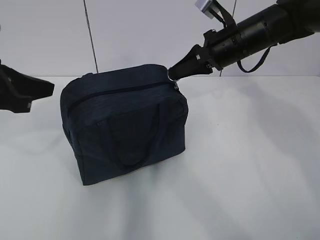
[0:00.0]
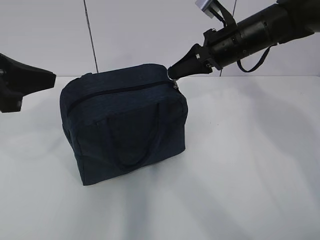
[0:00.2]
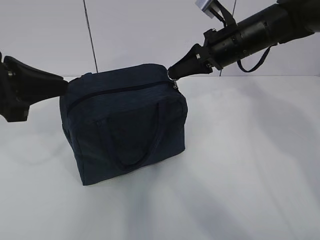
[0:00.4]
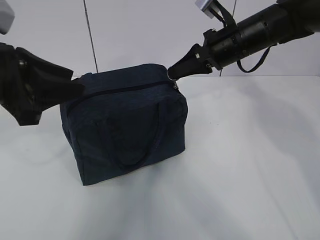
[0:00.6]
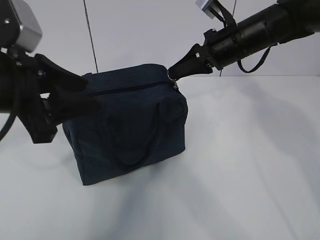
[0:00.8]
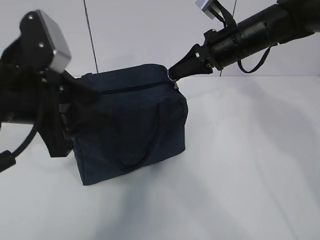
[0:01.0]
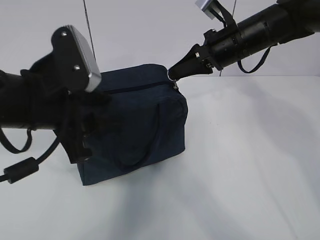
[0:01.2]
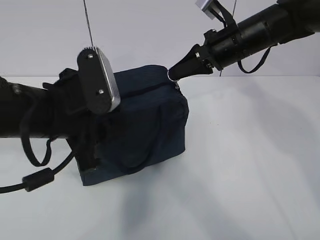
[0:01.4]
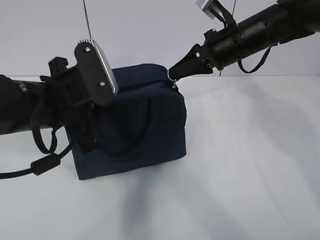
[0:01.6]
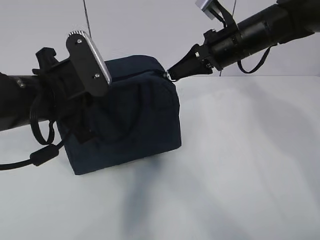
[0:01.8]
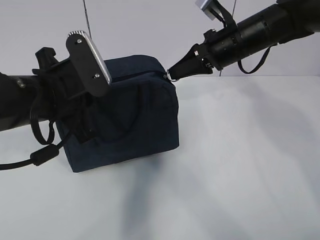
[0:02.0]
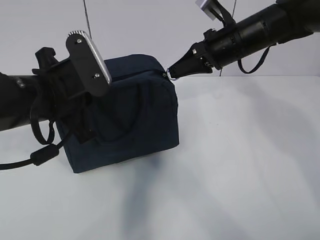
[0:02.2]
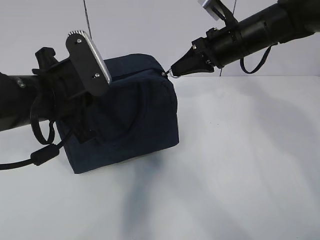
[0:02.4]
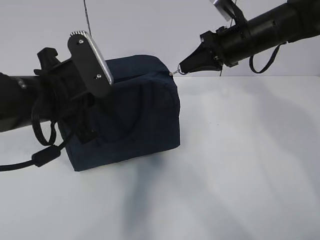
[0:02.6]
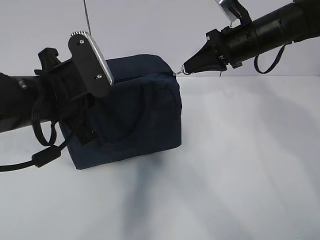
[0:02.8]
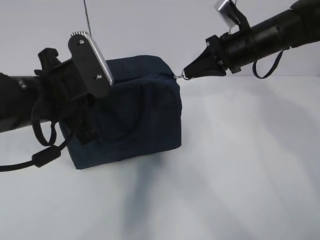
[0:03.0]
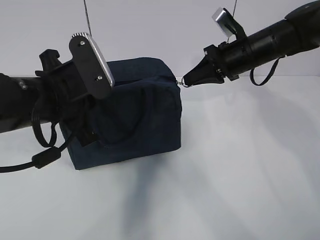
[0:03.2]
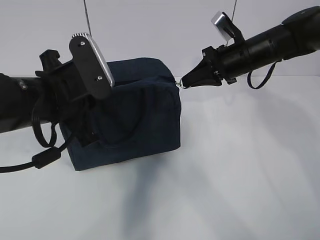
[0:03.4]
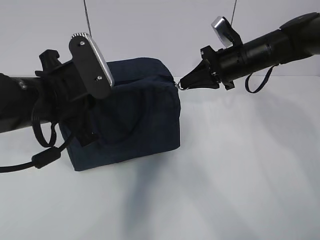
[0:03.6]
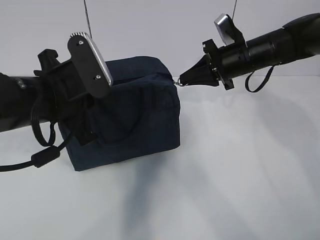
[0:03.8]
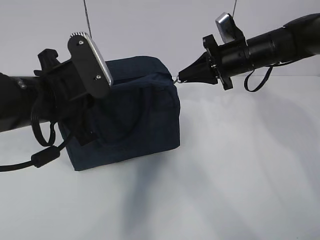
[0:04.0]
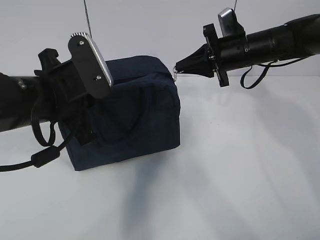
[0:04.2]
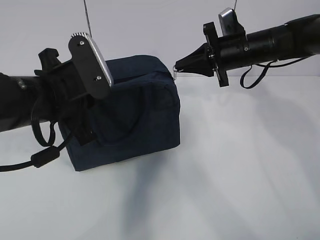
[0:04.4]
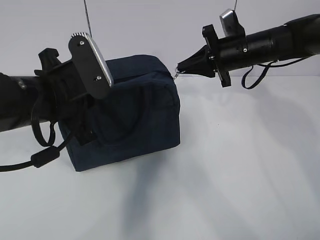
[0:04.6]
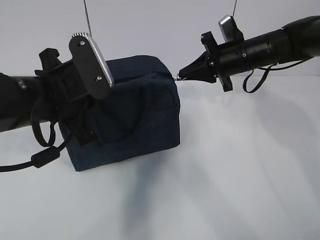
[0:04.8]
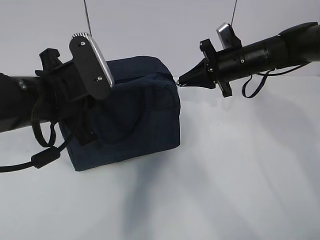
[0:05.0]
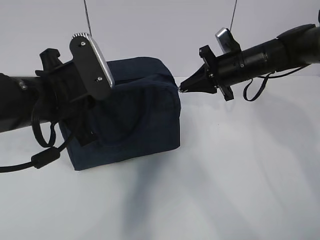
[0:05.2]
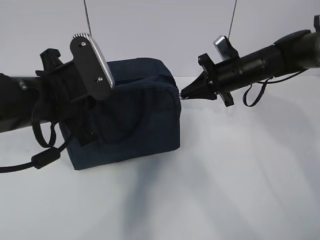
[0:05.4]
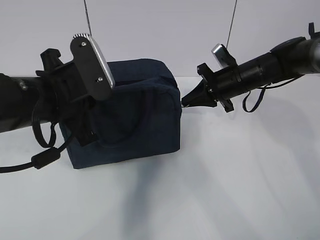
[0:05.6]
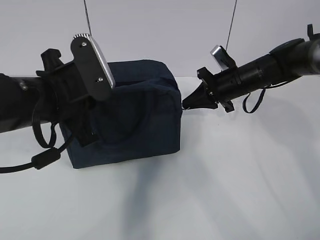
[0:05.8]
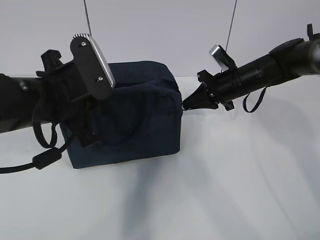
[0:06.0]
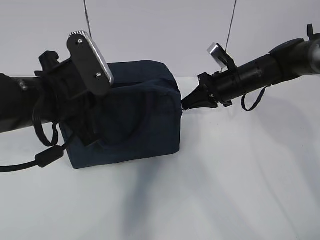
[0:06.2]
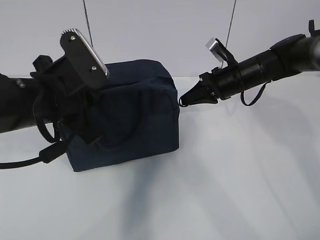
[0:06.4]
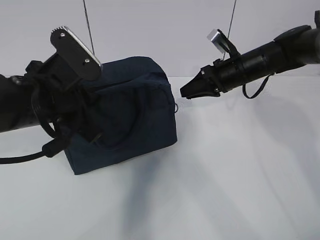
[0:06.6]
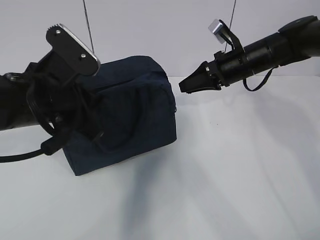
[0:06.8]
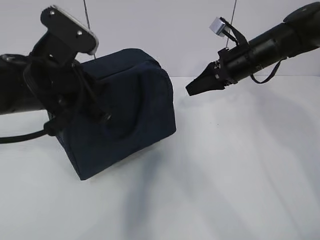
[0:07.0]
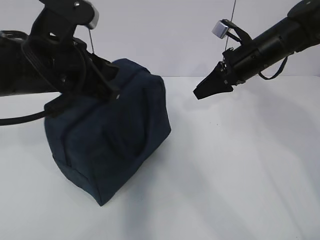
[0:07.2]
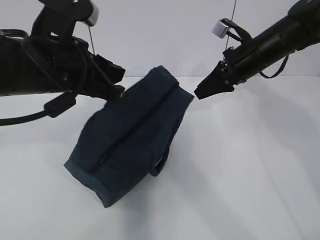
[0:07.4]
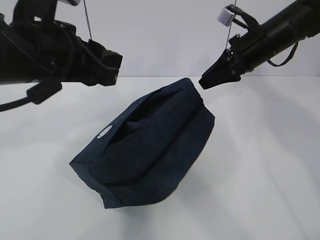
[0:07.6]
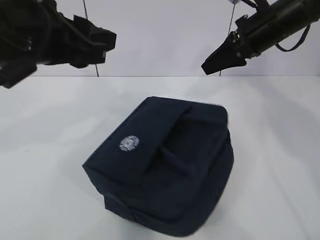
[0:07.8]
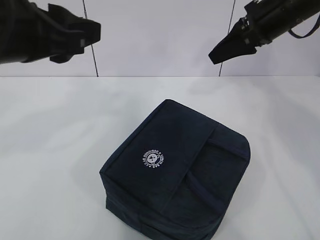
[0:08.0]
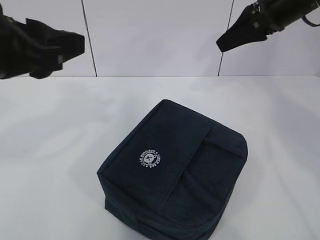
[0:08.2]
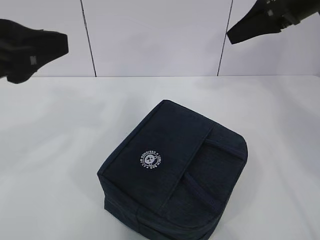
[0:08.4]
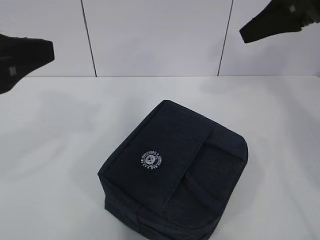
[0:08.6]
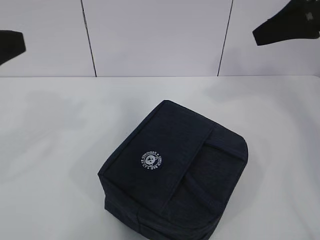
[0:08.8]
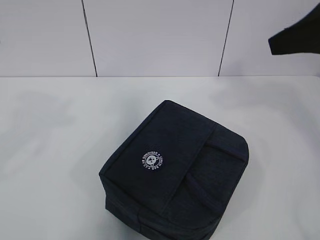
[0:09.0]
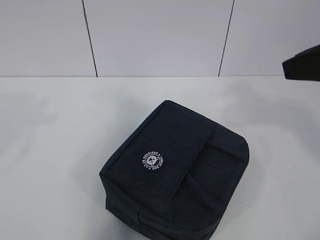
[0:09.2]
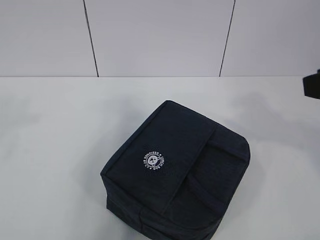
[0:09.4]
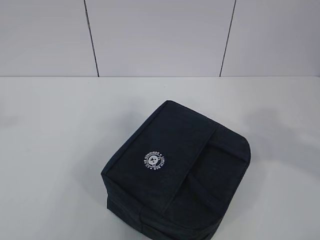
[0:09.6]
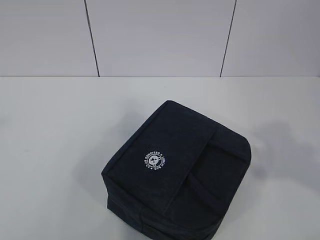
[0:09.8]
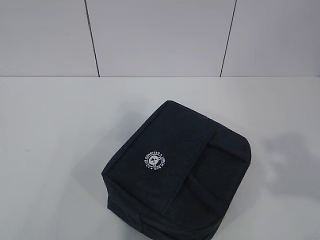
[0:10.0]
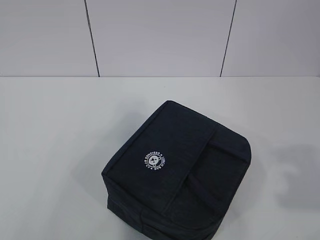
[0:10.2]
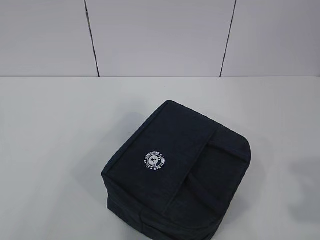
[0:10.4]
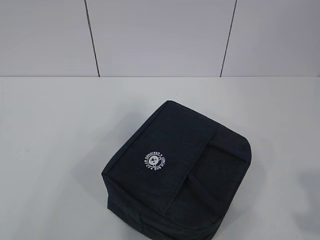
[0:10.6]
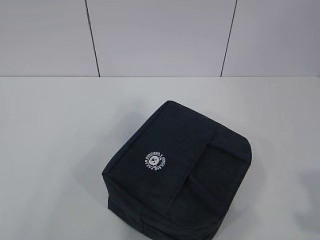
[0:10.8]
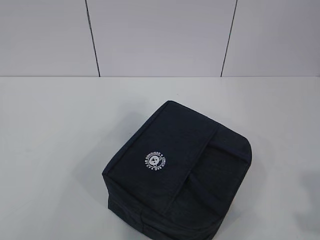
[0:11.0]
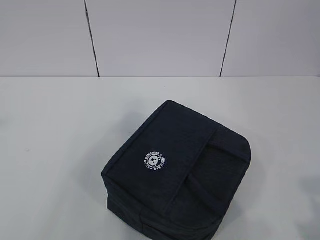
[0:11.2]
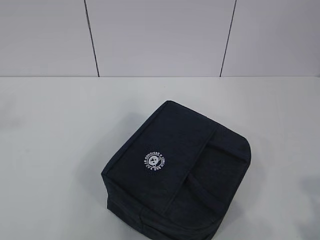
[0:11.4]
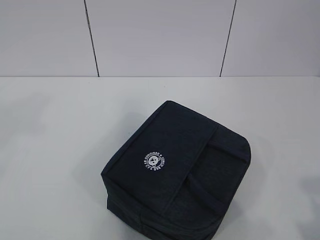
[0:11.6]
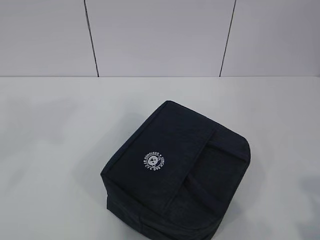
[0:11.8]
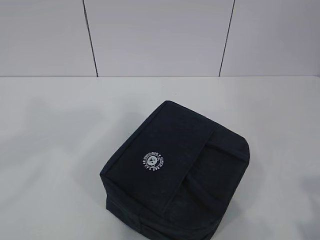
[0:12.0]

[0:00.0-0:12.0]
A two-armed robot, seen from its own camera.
0.0 to 1.6 s: The left gripper goes some 10 cm to the right, and opens its fingers.
1.6 to 3.0 s: The left gripper closes its fingers.
4.4 to 6.0 s: The right gripper goes roughly 5 cm downward.
6.0 to 7.6 s: The left gripper shifts about 5 cm upward, and opens its fingers. Meanwhile the right gripper goes approximately 10 cm upward, and opens.
7.6 to 9.0 s: The left gripper travels to the left and backward by roughly 15 cm, while the right gripper travels backward and upward by approximately 20 cm.
9.0 to 10.4 s: The left gripper shifts about 15 cm to the left and backward; the right gripper shifts some 25 cm backward.
10.4 to 12.0 s: The left gripper heads to the right, covering roughly 15 cm.

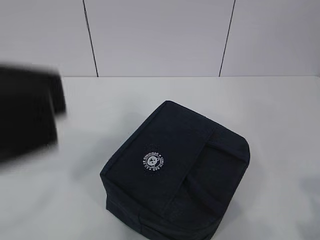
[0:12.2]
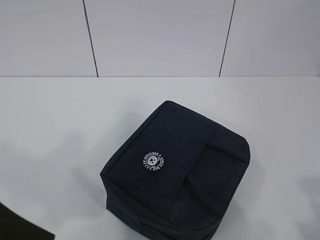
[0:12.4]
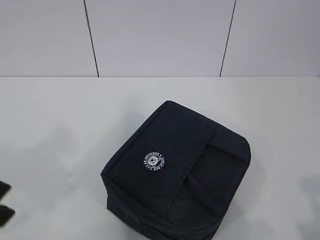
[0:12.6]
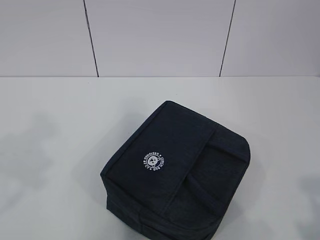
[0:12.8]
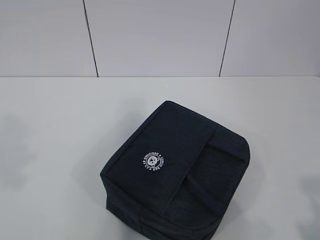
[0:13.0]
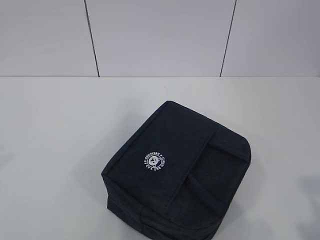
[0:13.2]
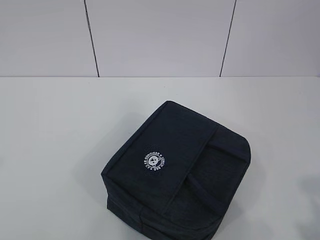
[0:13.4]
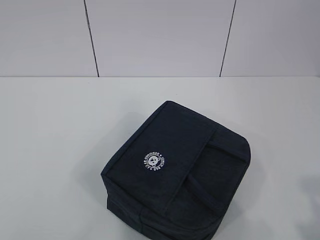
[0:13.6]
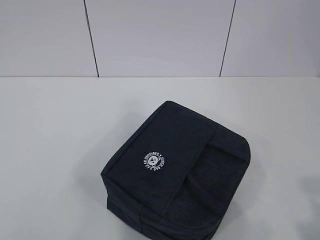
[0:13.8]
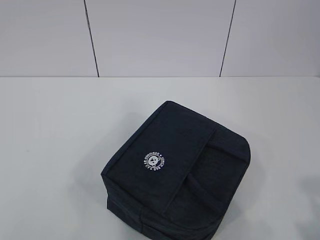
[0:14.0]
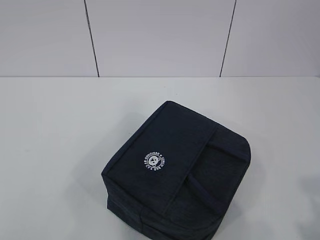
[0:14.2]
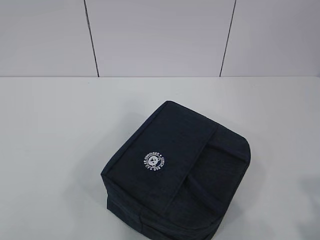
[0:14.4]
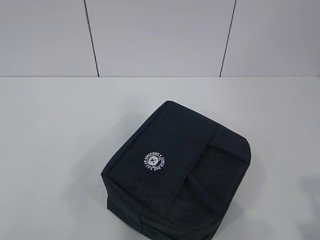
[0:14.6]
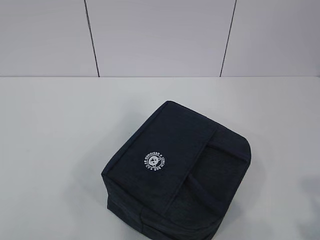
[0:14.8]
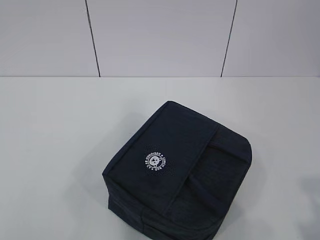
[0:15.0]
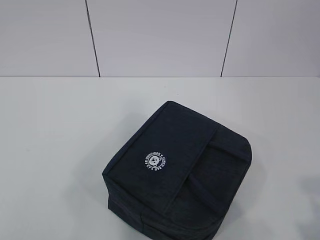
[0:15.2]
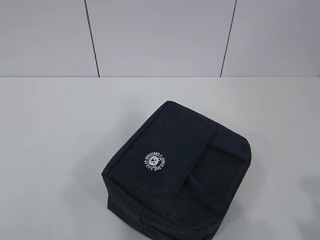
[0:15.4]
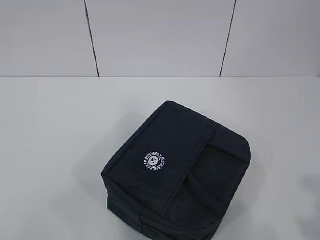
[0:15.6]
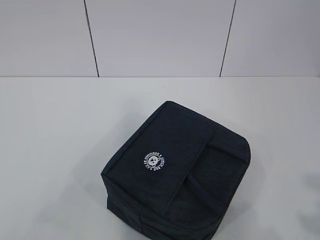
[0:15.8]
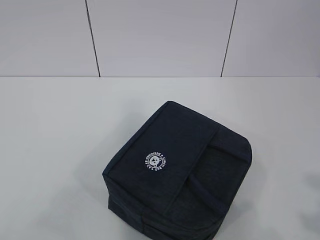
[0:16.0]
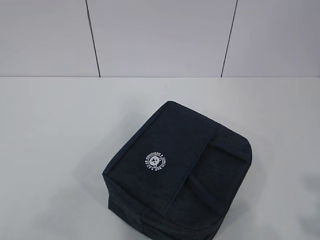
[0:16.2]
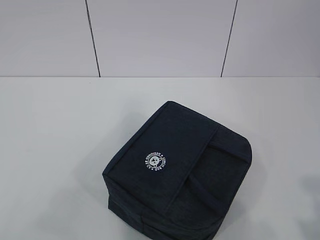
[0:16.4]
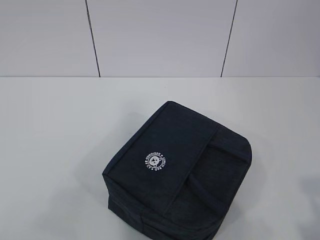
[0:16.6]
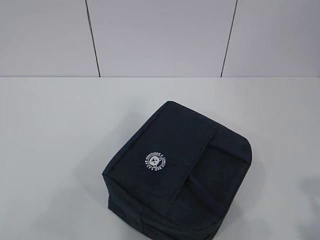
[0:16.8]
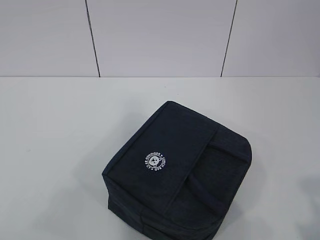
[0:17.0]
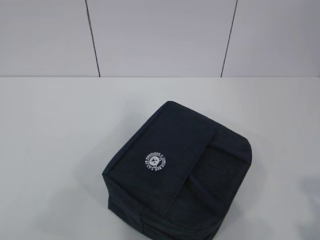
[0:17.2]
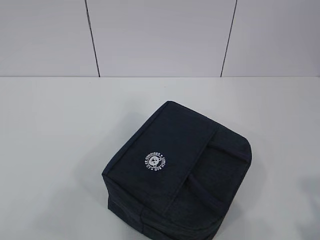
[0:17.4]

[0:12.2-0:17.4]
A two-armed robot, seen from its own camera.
12.2 to 14.0 s: The left gripper heads to the left, backward and downward, covering some 20 cm.

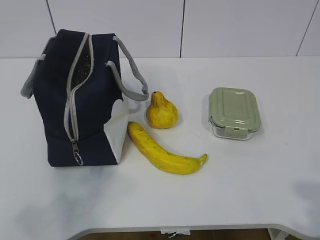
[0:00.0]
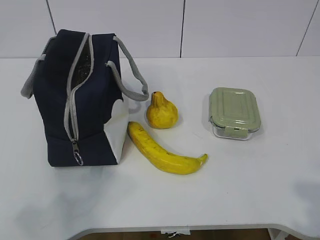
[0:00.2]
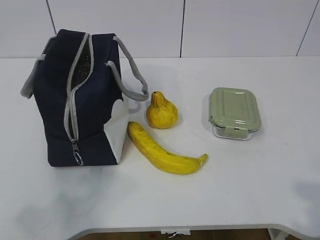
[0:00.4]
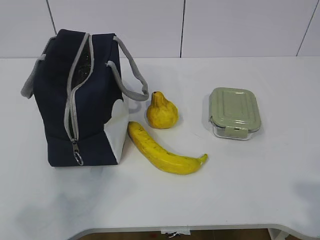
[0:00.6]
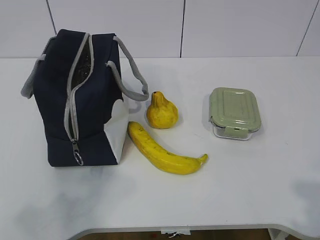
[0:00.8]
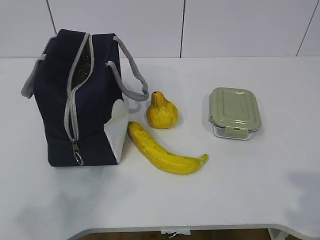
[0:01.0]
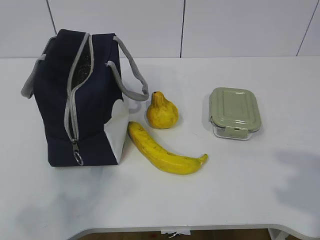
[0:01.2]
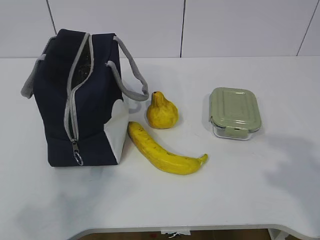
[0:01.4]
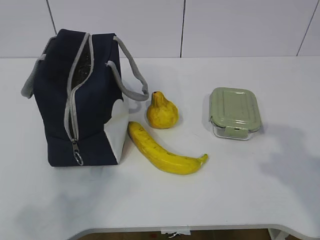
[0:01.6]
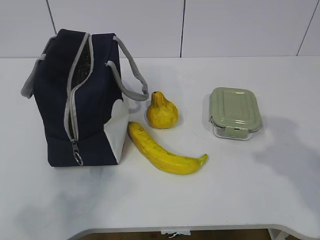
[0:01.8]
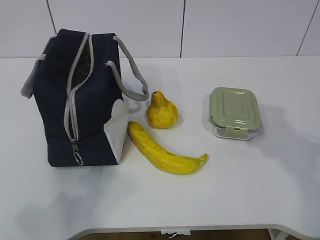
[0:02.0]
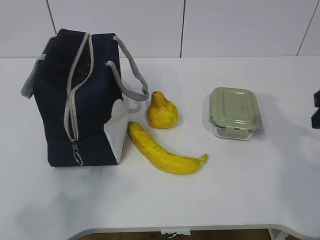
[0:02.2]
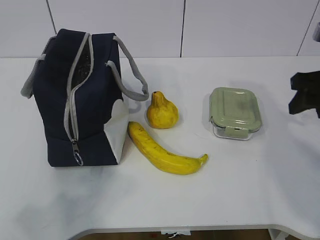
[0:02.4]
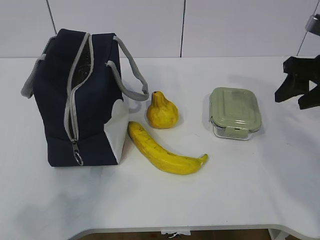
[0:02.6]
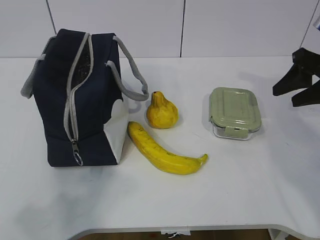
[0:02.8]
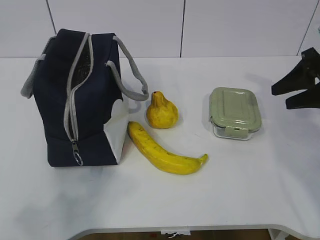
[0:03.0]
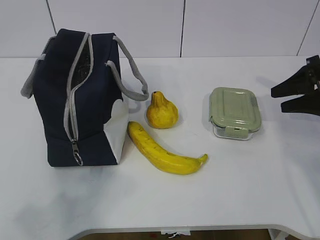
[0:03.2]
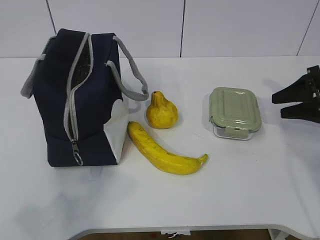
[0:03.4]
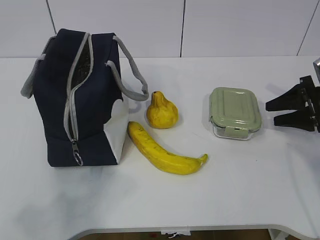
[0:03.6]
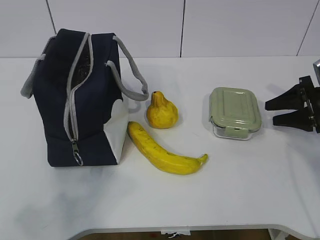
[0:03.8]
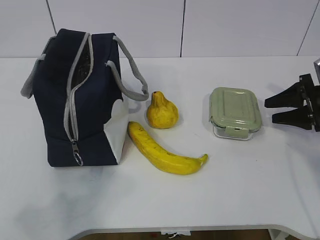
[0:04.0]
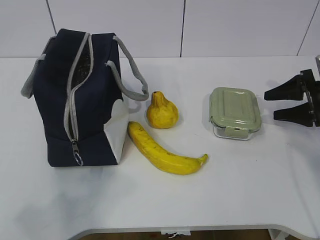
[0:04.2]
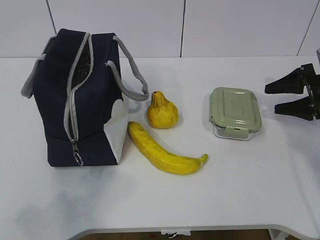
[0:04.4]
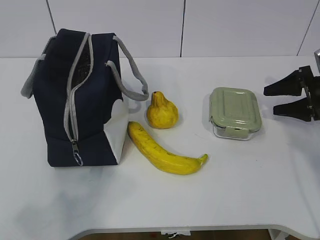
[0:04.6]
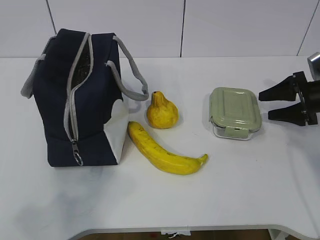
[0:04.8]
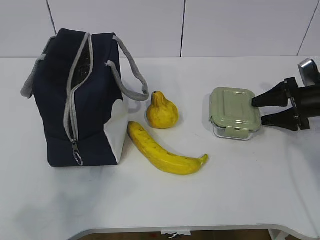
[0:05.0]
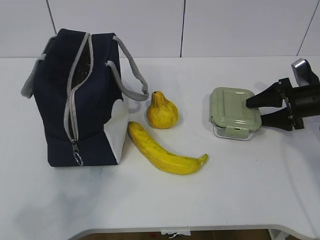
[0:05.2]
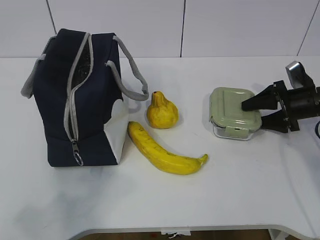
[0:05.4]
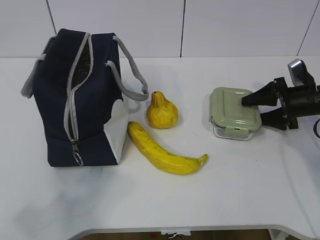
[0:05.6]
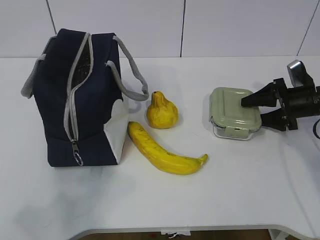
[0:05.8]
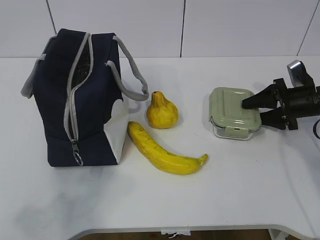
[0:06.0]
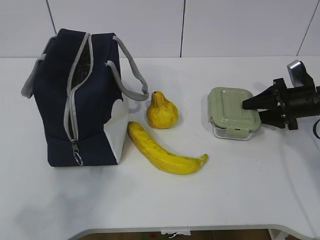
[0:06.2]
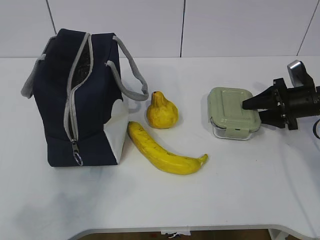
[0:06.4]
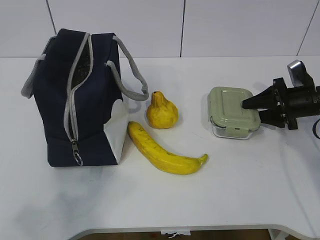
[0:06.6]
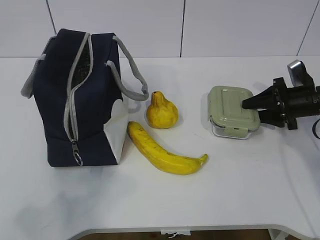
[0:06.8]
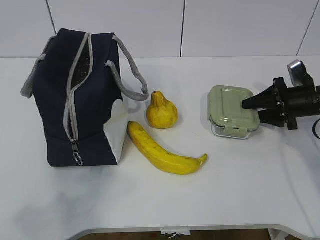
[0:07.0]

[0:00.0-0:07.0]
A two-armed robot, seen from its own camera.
Step, 0.0 to 5.0 s: Grab the lunch box with your right hand.
1.4 to 2.8 s: The right gripper goes approximately 25 cm forward.
2.8 to 4.2 s: The right gripper heads downward and to the right, covering about 10 cm.
4.2 to 5.6 s: The right gripper ends up roughly 5 cm from where it was.
5.6 to 7.0 s: The right gripper closes.
